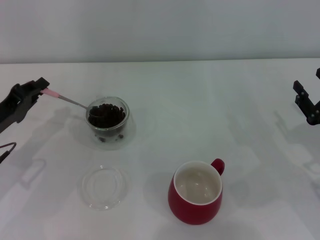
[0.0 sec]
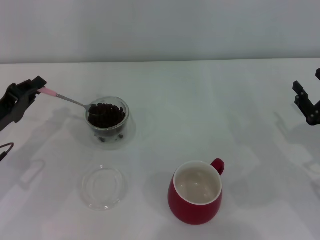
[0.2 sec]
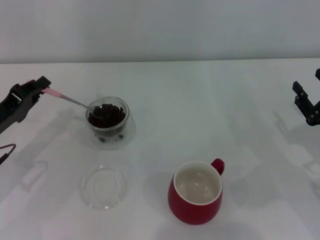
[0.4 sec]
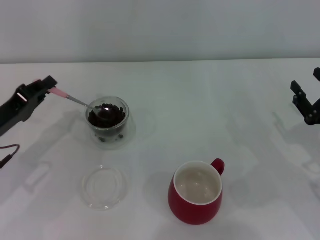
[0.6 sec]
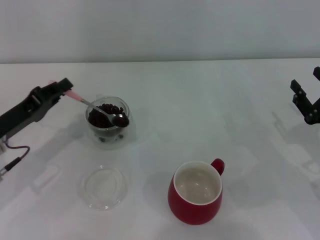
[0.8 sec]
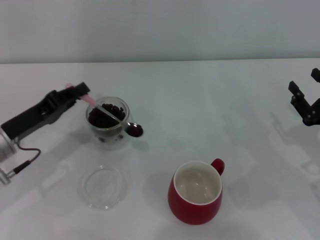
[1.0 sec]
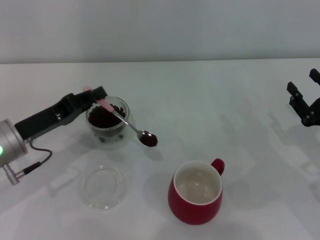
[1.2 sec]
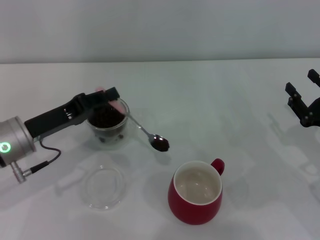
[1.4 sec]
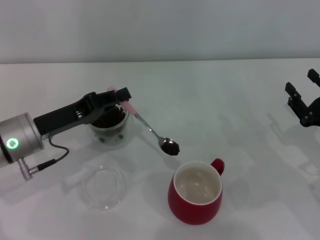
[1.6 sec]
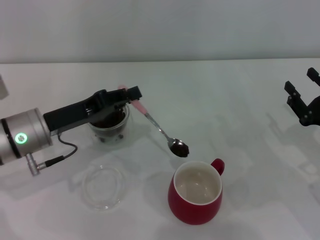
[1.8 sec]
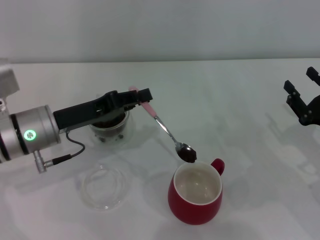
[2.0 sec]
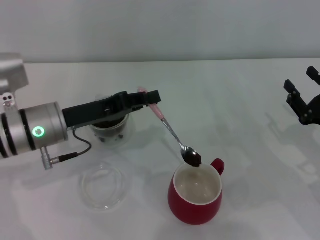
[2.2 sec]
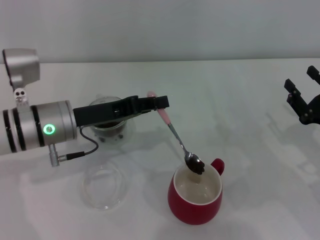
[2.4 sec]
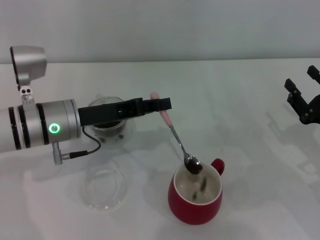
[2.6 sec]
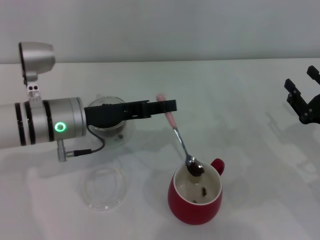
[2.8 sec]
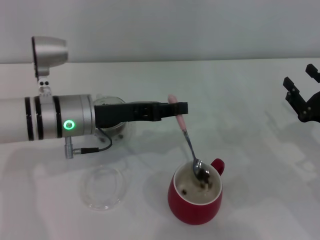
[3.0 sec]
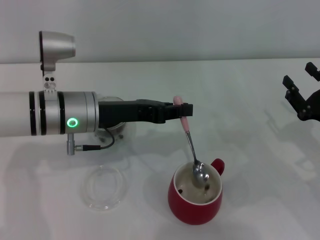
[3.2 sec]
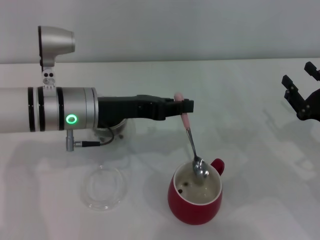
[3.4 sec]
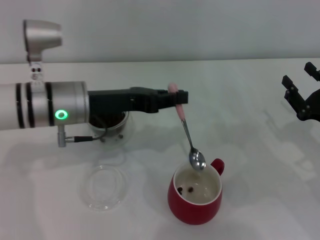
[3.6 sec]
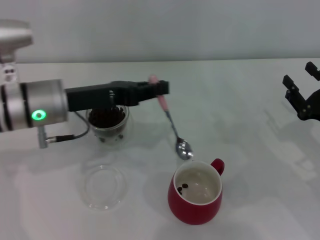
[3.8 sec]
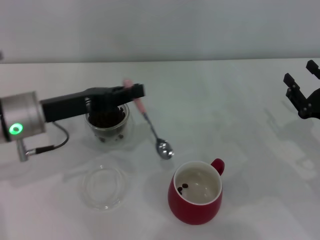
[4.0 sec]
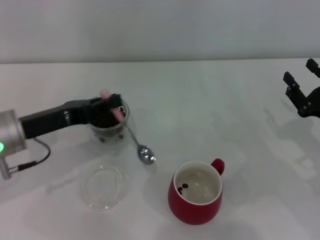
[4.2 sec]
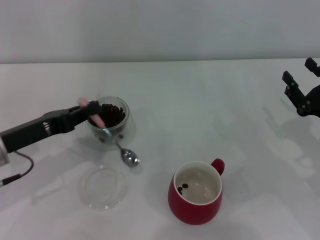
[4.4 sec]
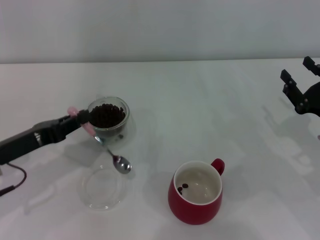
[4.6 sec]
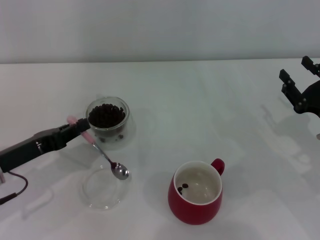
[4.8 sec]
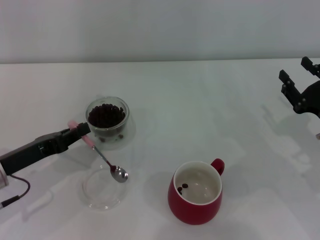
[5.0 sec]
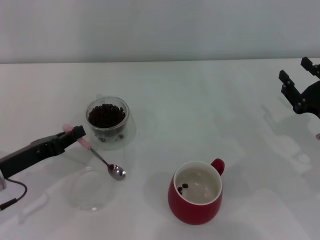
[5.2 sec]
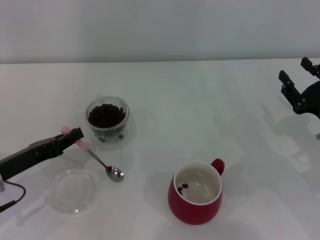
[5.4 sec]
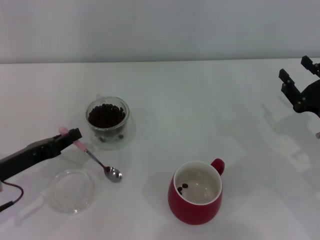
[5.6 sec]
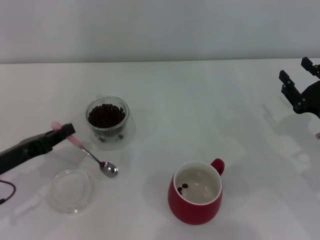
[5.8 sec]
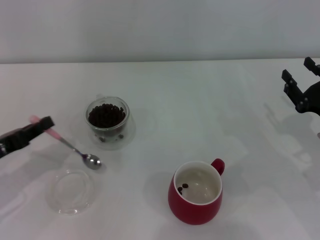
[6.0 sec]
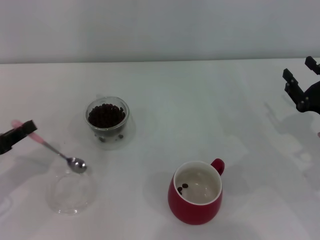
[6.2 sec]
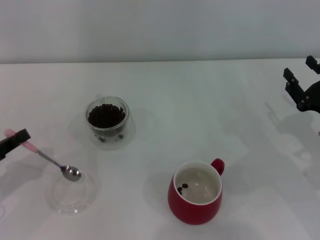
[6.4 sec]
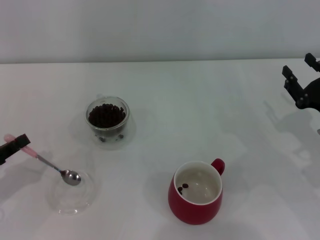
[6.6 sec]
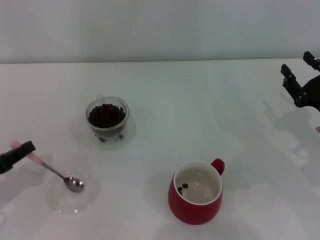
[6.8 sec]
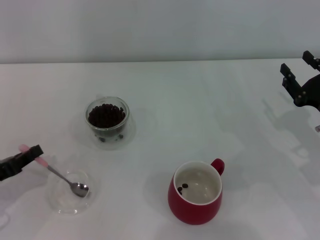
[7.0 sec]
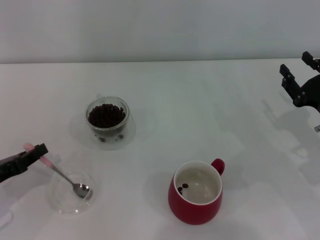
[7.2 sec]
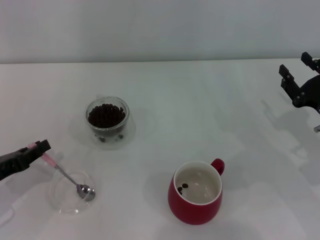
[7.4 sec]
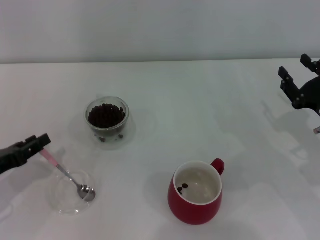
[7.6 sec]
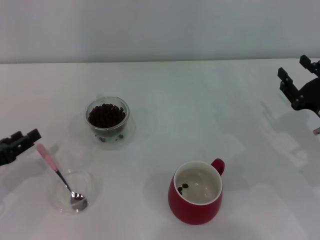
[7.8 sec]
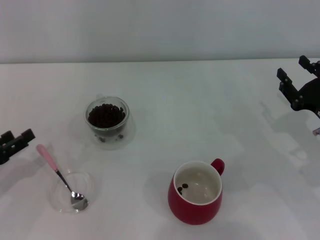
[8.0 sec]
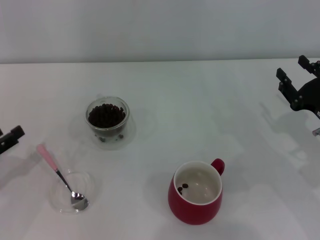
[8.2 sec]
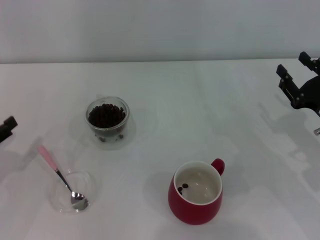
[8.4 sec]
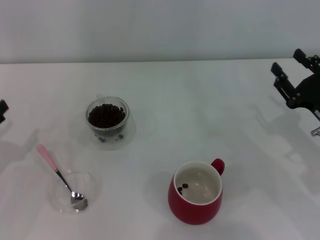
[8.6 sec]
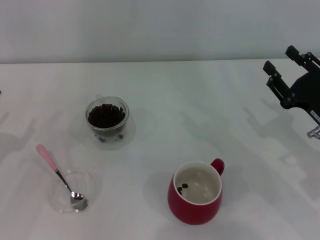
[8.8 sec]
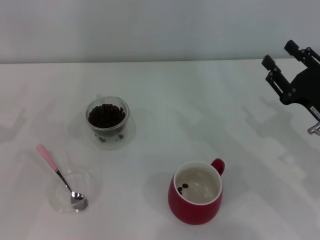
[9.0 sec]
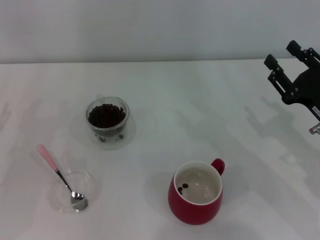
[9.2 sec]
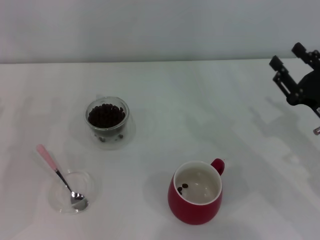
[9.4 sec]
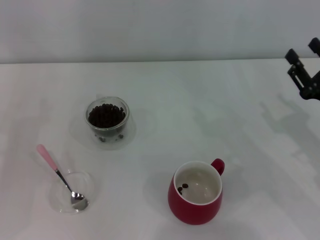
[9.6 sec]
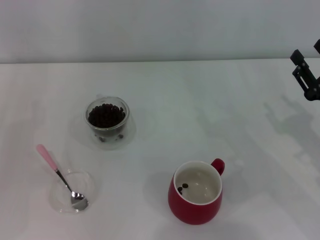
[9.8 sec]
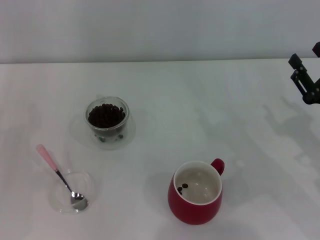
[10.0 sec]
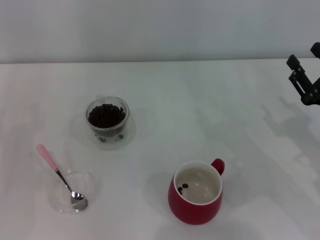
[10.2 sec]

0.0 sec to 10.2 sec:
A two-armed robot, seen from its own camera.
Task of the whole recording: Use a pink spoon to take out the coffee beans from the glass and pour them into the red cup.
0.0 sec to 1.4 sec: The left gripper shifts about 5 cm to the right.
1.4 sec to 3.0 sec: The left gripper heads to the right, covering approximately 10 cm.
3.0 sec to 4.4 sec: The left gripper moves to the left, approximately 10 cm.
4.4 sec to 5.8 sec: The left gripper ends up approximately 5 cm from where it was.
7.2 sec to 8.8 sec: The left gripper opens.

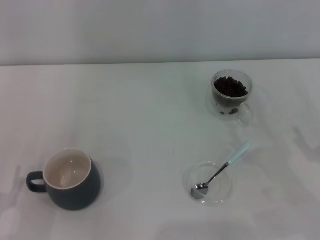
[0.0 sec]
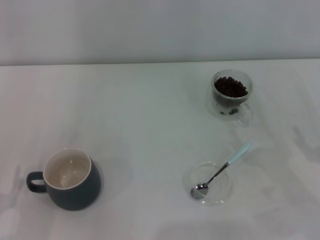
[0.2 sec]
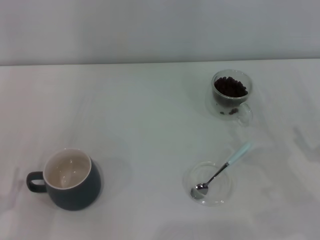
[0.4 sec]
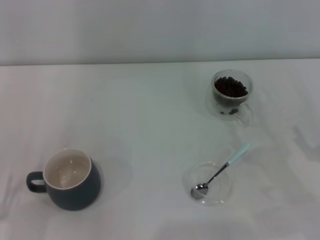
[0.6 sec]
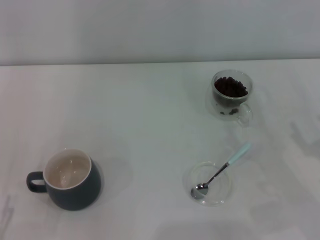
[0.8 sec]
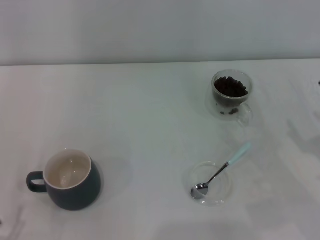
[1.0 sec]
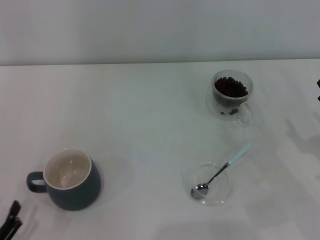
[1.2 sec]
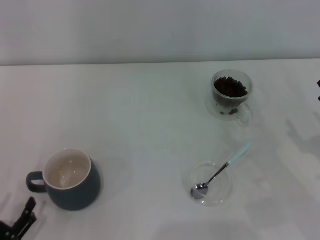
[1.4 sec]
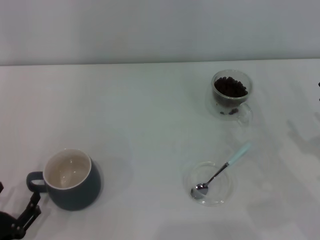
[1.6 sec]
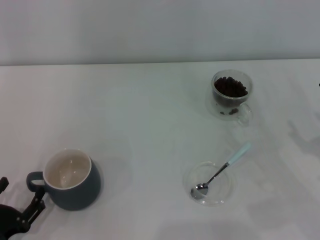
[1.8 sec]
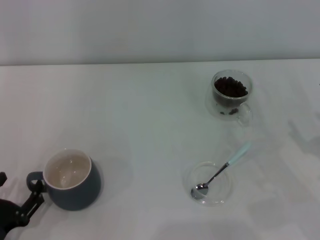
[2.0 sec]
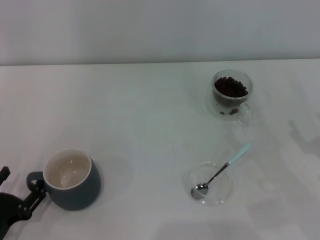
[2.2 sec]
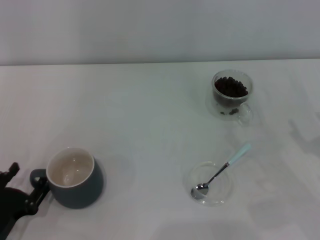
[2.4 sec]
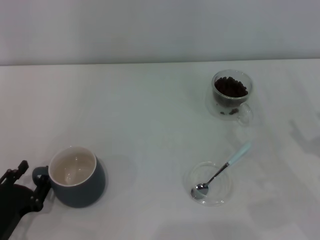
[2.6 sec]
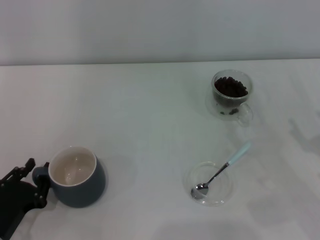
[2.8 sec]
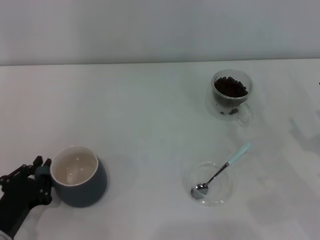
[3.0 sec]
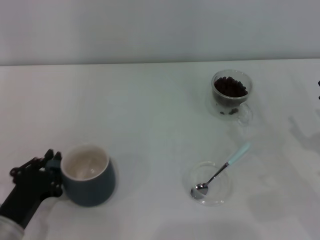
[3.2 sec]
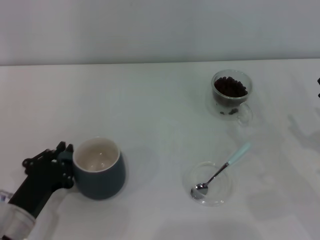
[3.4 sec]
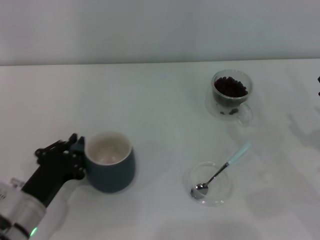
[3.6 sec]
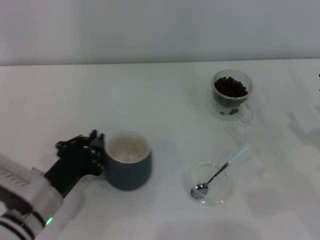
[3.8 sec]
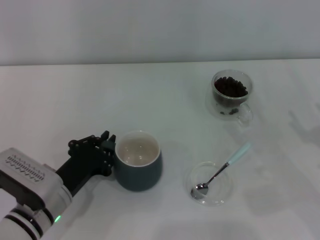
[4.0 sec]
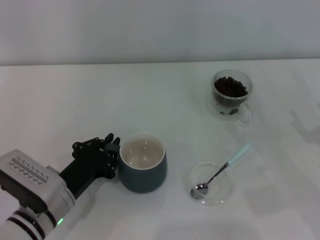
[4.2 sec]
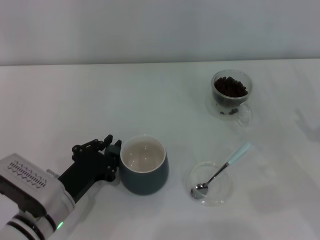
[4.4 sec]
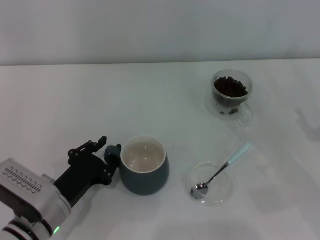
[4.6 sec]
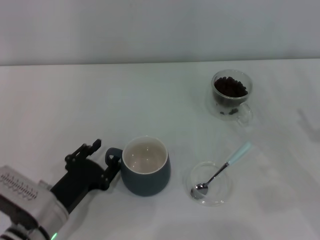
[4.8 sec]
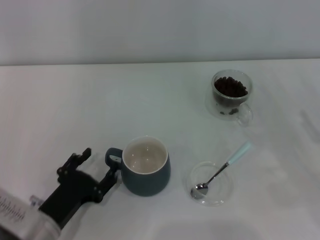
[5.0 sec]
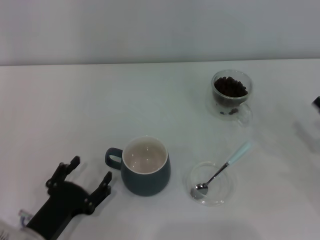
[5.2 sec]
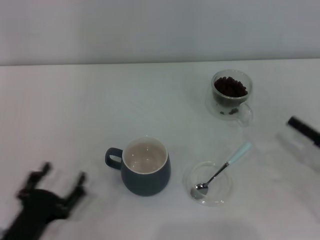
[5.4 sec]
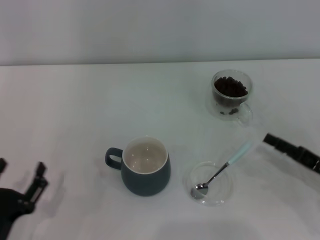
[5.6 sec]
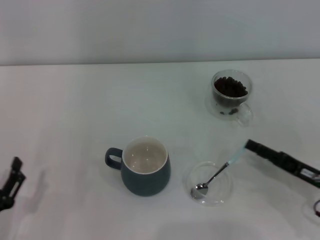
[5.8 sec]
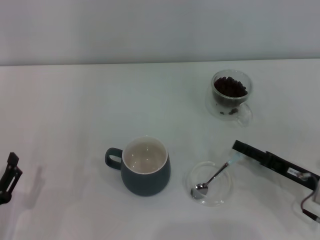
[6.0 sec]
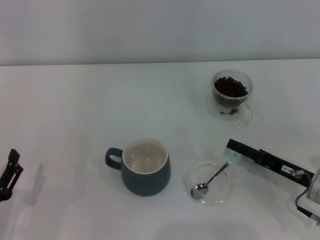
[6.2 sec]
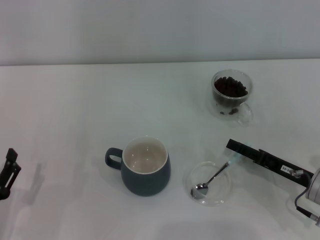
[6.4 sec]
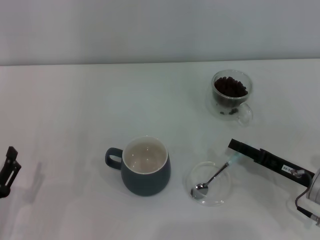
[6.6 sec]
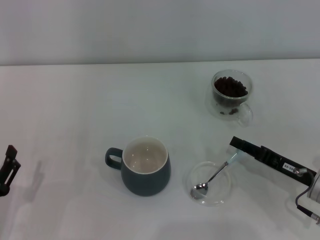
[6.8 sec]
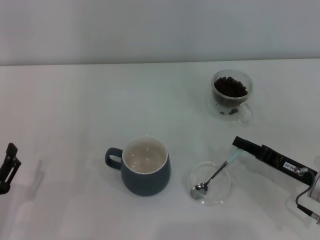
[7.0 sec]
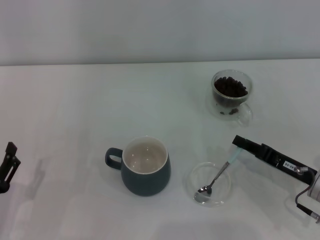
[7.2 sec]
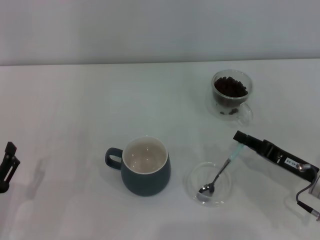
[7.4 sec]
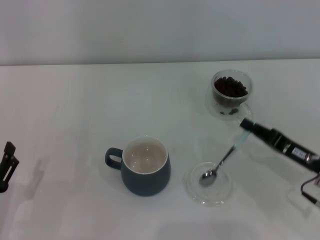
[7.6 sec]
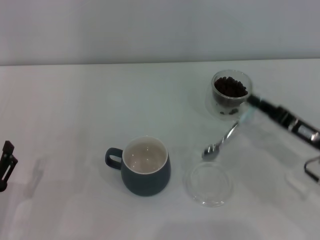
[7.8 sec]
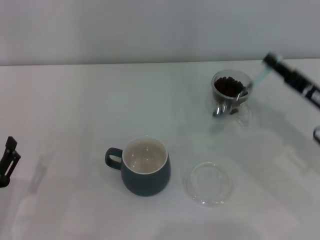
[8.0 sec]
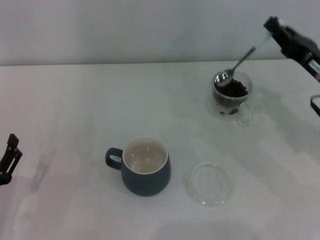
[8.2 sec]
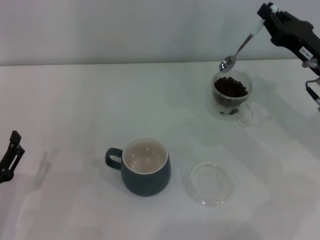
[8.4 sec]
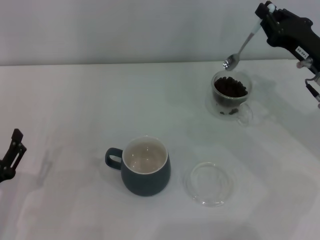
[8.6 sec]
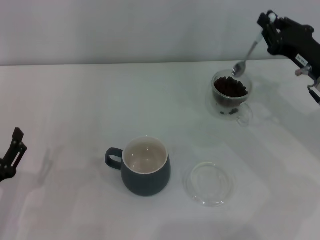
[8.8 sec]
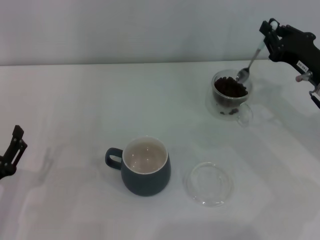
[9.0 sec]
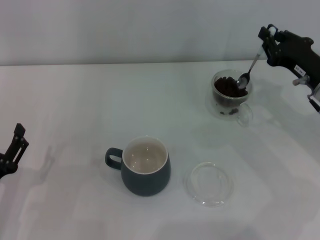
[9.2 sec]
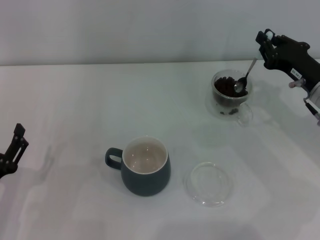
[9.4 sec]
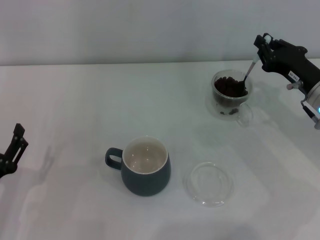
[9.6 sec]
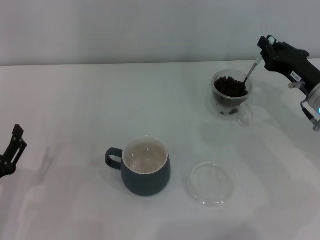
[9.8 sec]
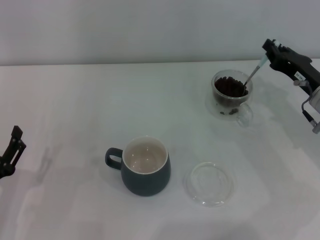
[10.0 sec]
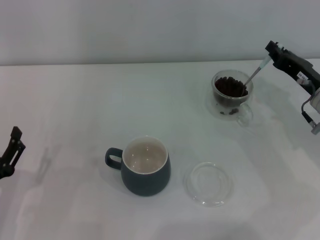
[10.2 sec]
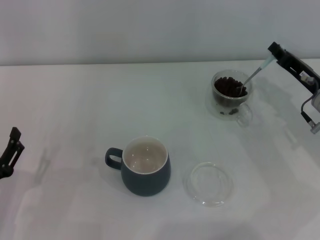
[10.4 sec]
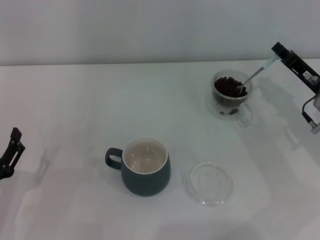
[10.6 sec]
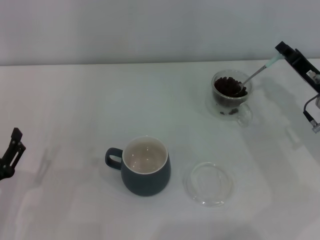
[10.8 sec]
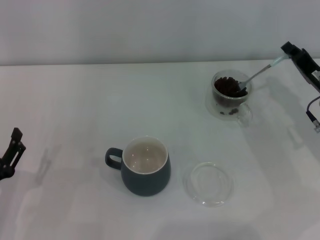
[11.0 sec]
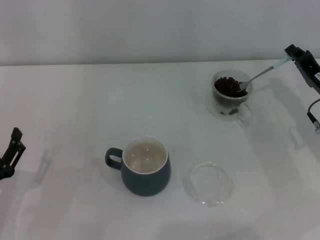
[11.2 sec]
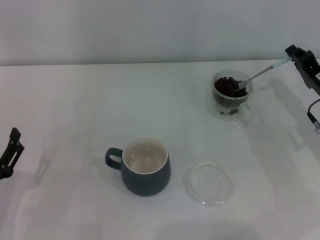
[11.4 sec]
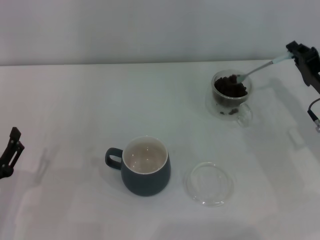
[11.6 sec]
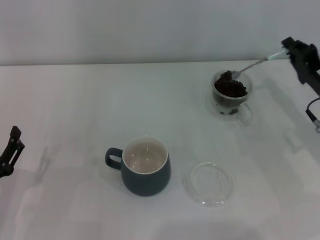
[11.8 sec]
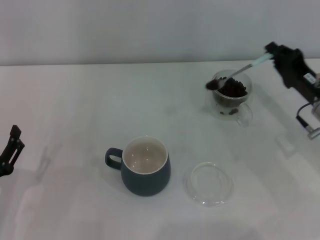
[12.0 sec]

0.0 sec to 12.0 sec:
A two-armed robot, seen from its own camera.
Task of the whole recording: Use a blue spoon to take out the coffee beans from the glass and pour them into the gray cup.
Step, 0.0 sec to 5.2 sec: Move the cup to the center of view with the left gripper.
Step, 5.6 sec to 7.6 sec: Pick up the spoon with the right gripper.
1.6 sec to 3.0 sec: The left gripper shifts about 5 cm forward, and closes its fingers.
3.0 sec to 4.4 sec: The left gripper moves to the right and forward, approximately 10 cm.
4.4 sec to 6.0 sec: The left gripper shifts about 15 cm to the left and backward, and opens up. Meanwhile the right gripper goes some 10 cm to the left and downward.
6.0 sec to 7.6 sec: The right gripper closes.
7.6 sec to 9.0 sec: The right gripper is displaced forward and upward by about 10 cm.
